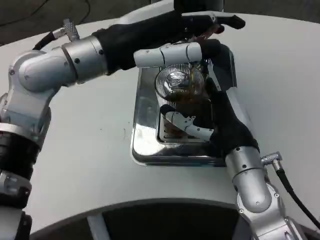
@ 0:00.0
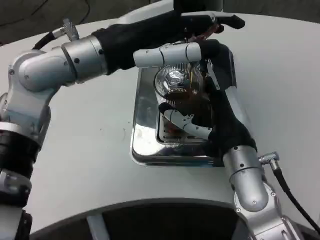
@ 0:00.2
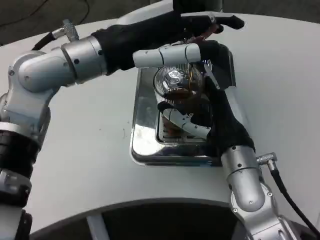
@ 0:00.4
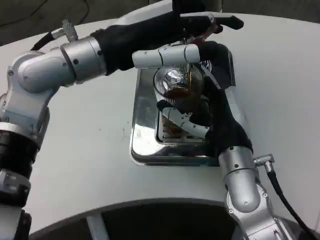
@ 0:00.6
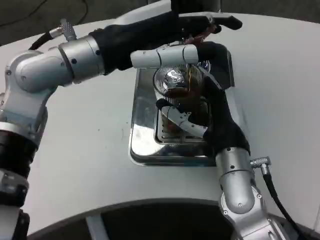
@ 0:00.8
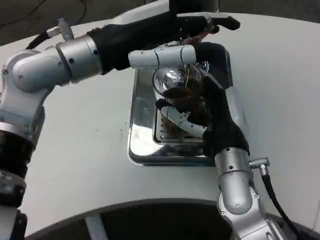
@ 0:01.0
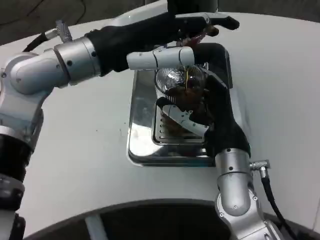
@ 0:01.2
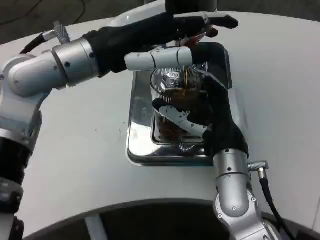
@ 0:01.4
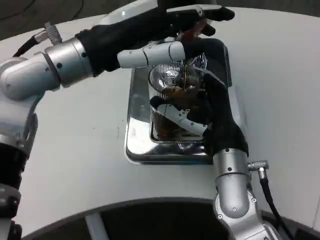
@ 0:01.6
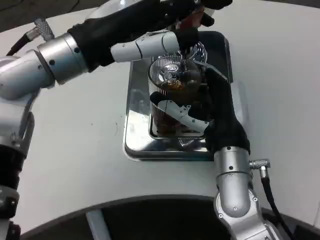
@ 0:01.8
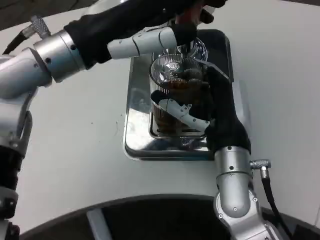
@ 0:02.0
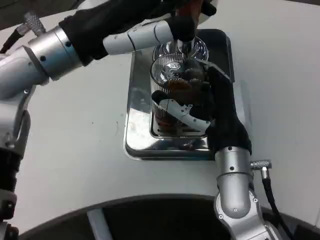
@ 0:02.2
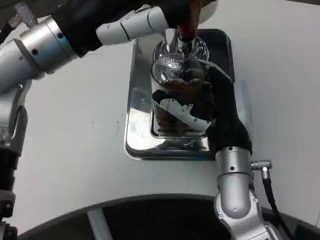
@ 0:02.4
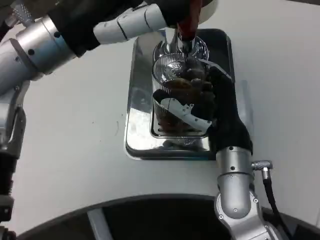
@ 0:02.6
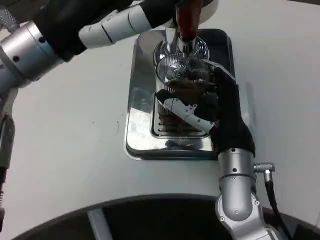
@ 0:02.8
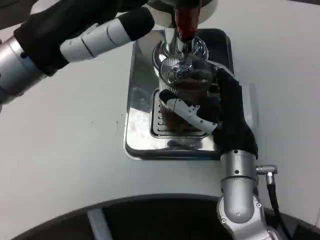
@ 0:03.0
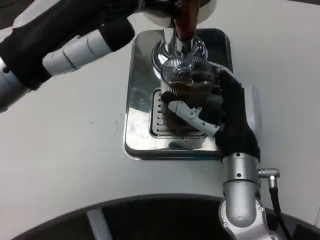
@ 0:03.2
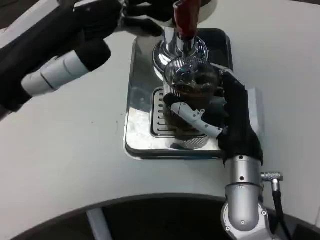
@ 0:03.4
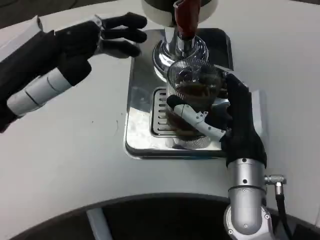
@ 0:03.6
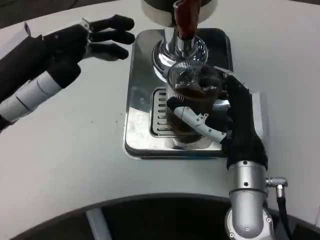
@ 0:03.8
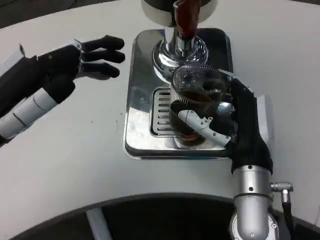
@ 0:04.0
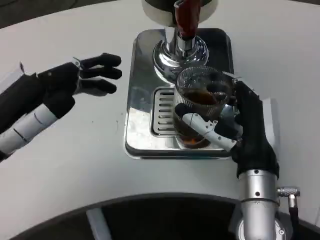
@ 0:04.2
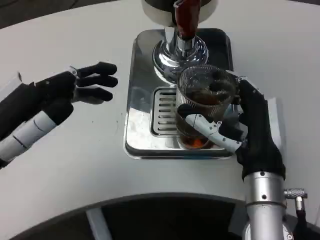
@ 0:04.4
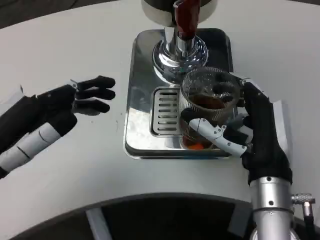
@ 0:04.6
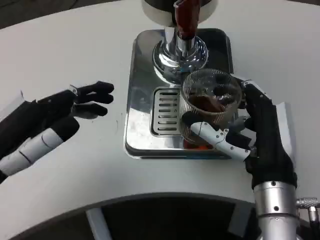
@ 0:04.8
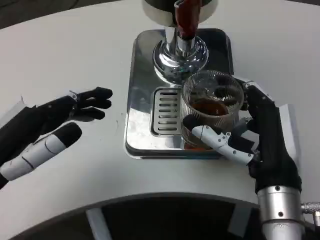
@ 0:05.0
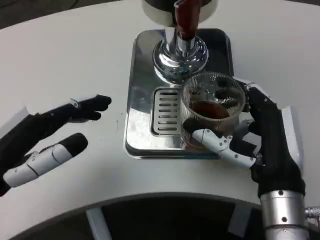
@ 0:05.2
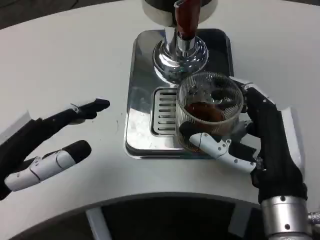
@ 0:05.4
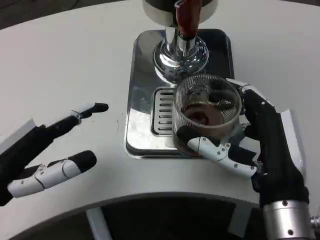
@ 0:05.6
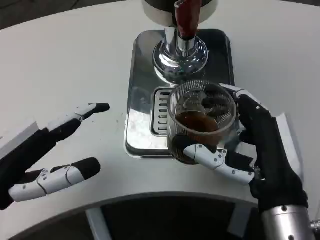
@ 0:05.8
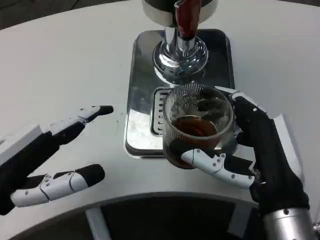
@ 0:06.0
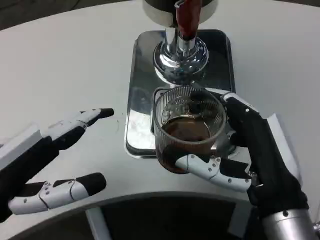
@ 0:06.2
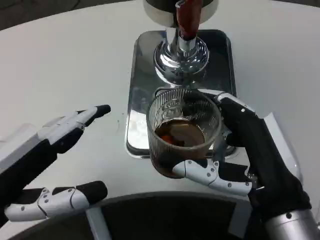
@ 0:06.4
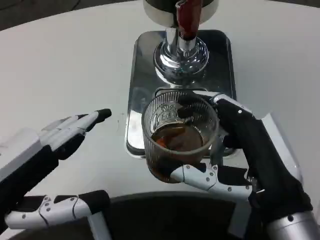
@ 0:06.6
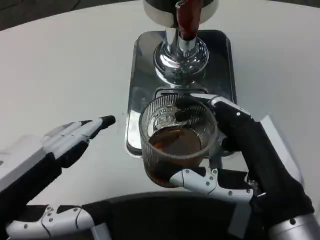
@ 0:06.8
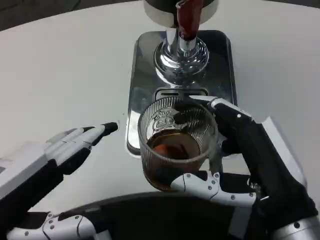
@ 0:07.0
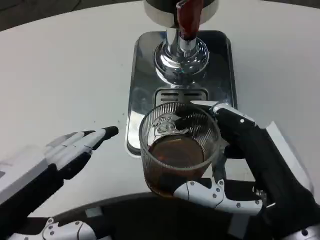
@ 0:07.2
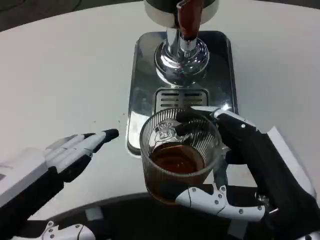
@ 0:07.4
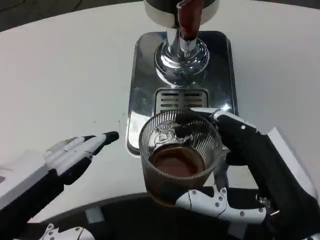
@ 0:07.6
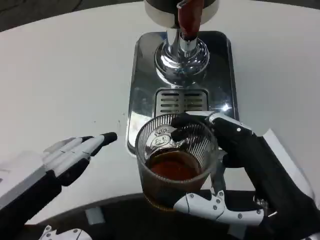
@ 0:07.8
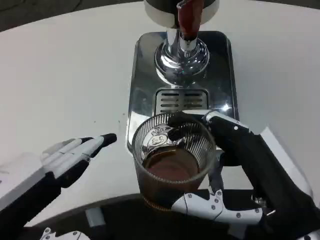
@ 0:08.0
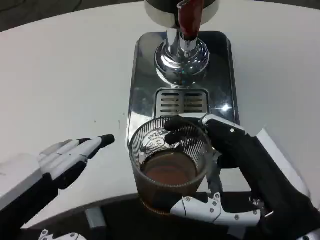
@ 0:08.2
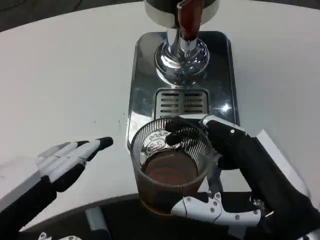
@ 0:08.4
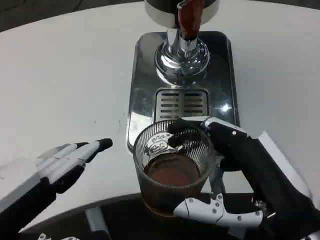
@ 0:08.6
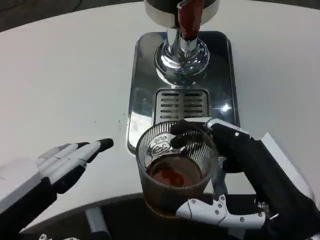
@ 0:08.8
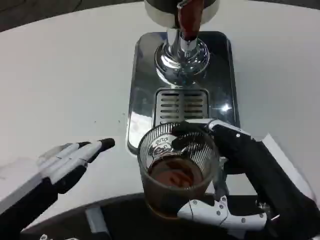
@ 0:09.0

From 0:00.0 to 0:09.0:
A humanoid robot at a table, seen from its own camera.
Task of the whole recording: Grasp the cup under the faucet to collect the drink, then remove the cup.
From 0:01.6 to 0:03.0: The left hand travels backward by roughly 5 cm.
From 0:03.0 to 0:04.4: The left hand moves downward, backward and to the left, some 15 cm.
From 0:04.4 to 0:06.0: The right hand shifts some 5 cm backward.
From 0:06.0 to 0:07.6: The left hand goes approximately 5 cm backward.
From 0:07.6 to 0:09.0: Neither hand changes place.
